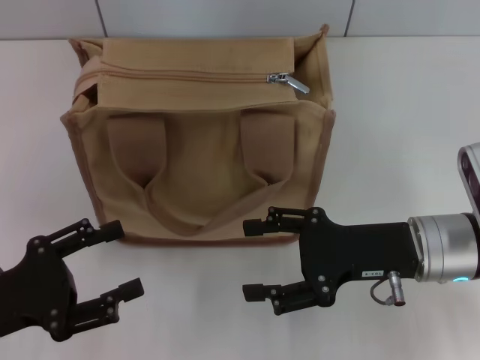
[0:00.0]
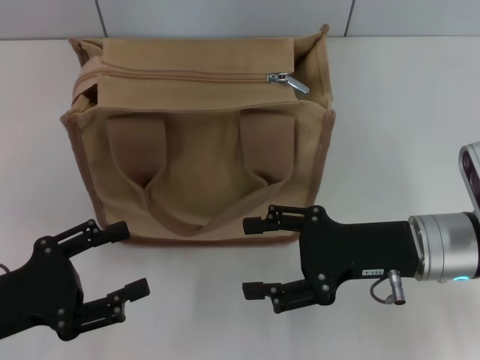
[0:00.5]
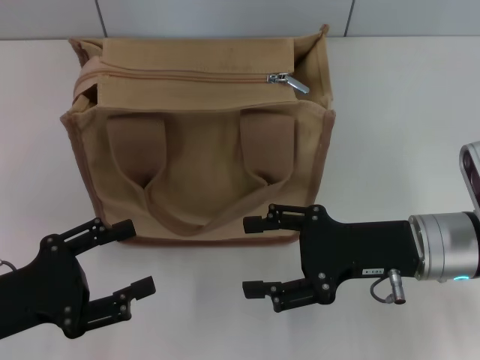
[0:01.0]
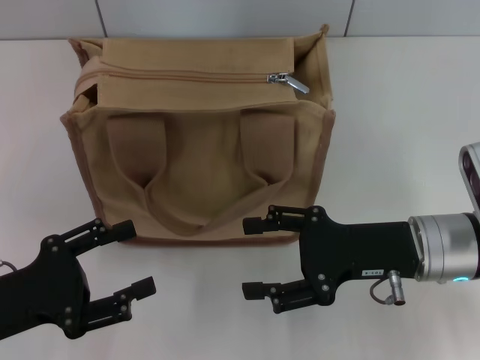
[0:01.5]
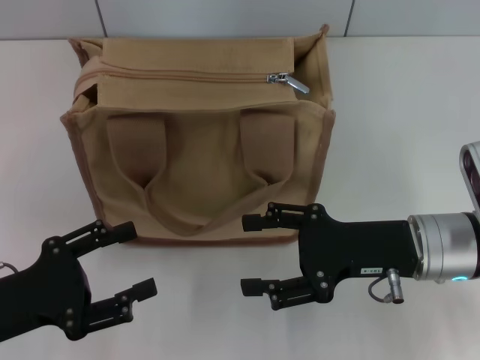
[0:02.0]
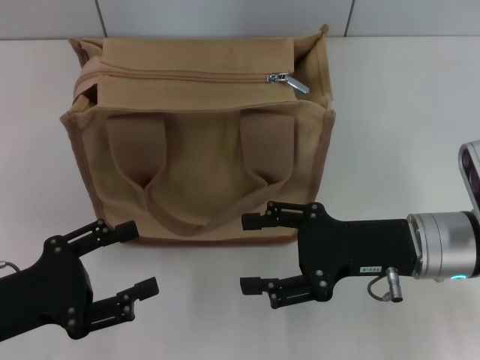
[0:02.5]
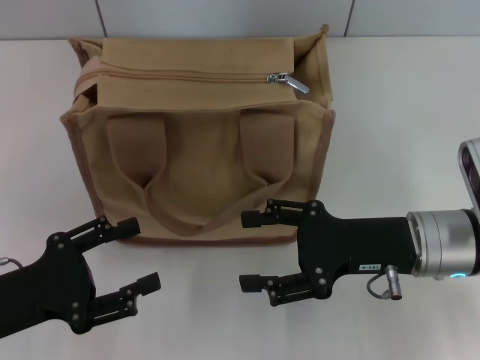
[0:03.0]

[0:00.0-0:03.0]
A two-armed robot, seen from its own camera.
0:00.0 to 0:01.5: Neither gripper changes place.
0:01.5 to 0:03.0: The two grippers keep their place.

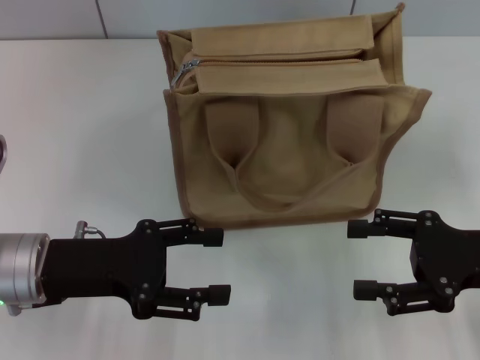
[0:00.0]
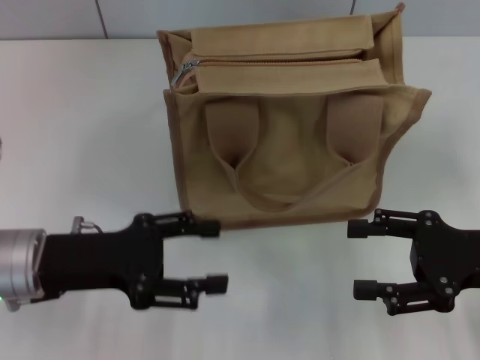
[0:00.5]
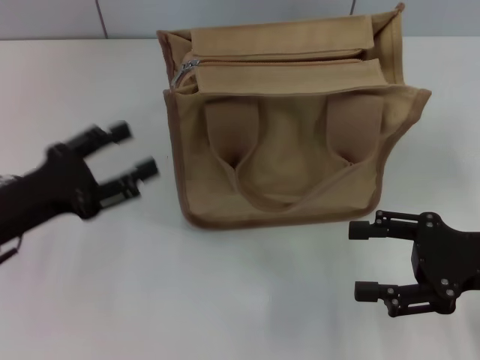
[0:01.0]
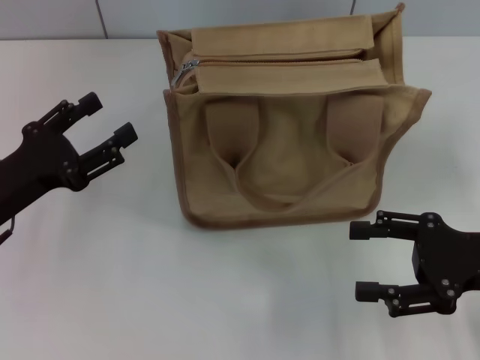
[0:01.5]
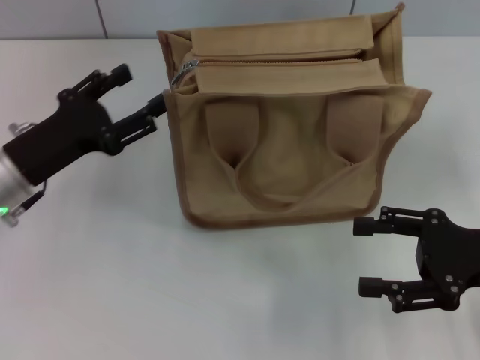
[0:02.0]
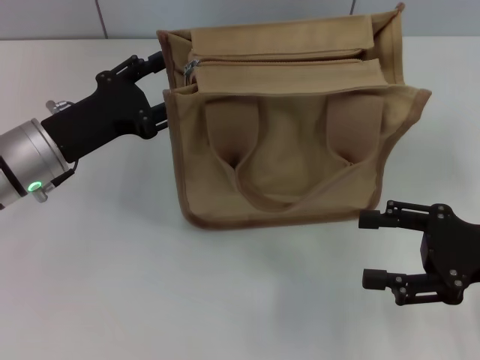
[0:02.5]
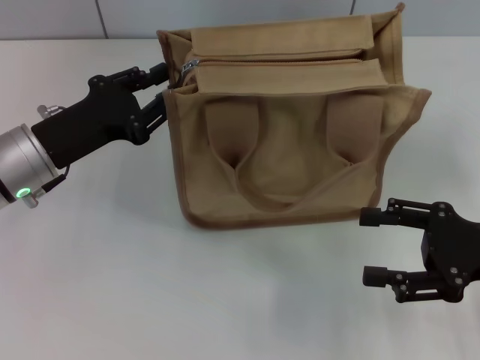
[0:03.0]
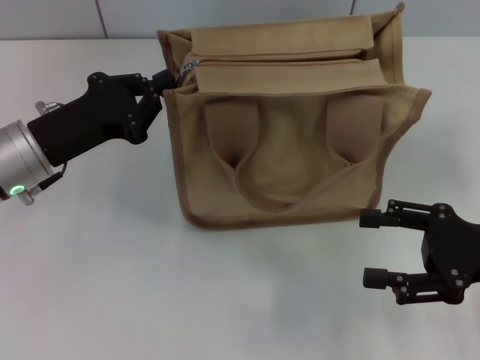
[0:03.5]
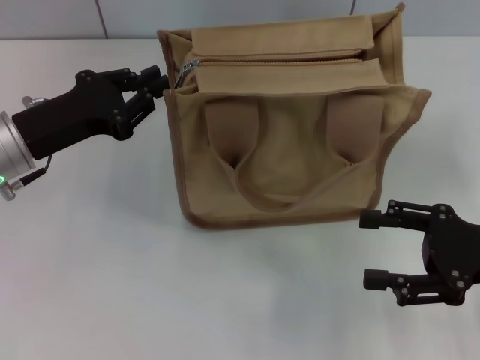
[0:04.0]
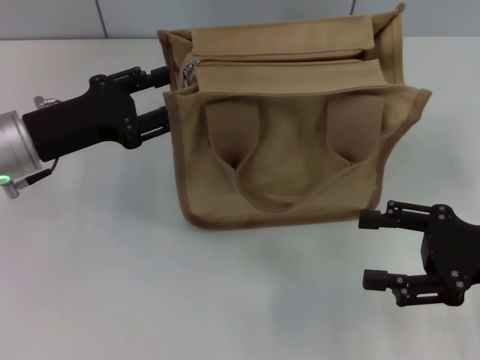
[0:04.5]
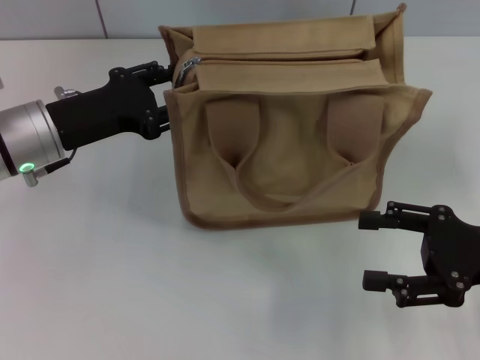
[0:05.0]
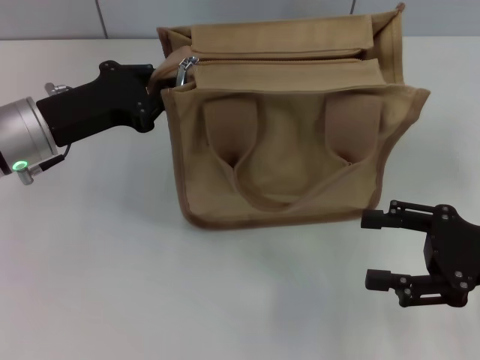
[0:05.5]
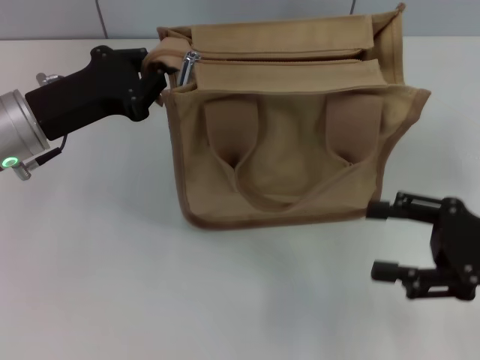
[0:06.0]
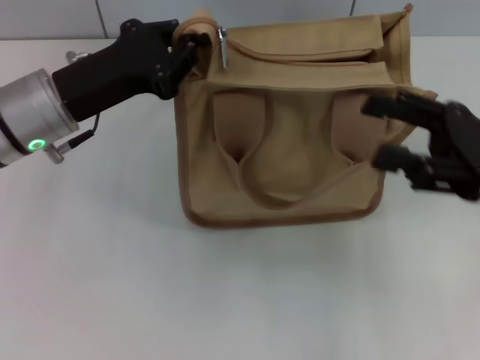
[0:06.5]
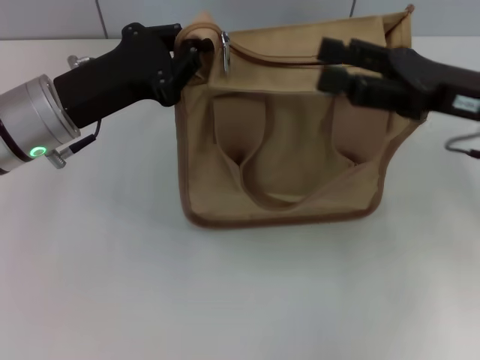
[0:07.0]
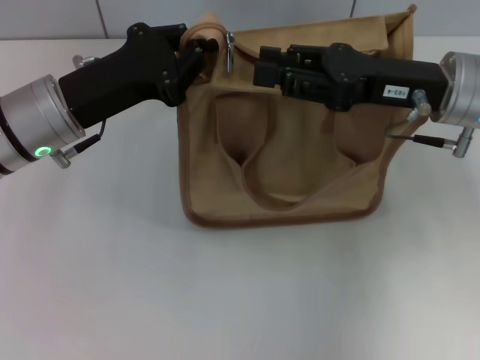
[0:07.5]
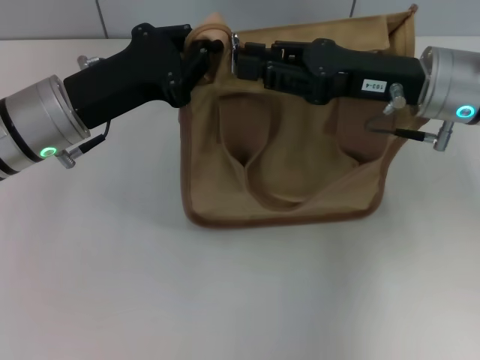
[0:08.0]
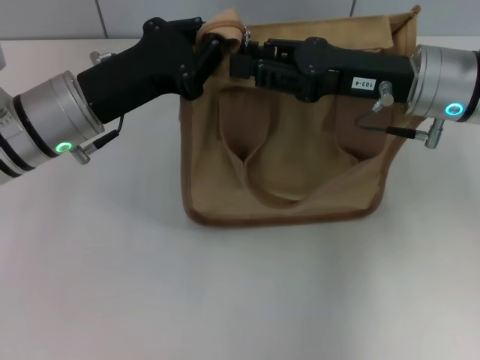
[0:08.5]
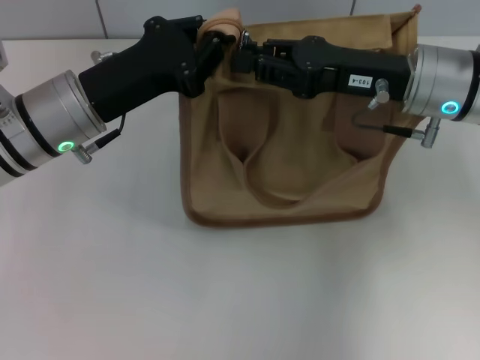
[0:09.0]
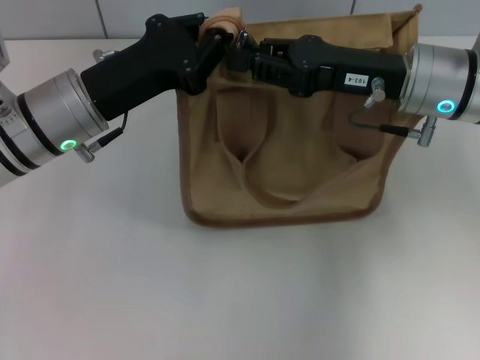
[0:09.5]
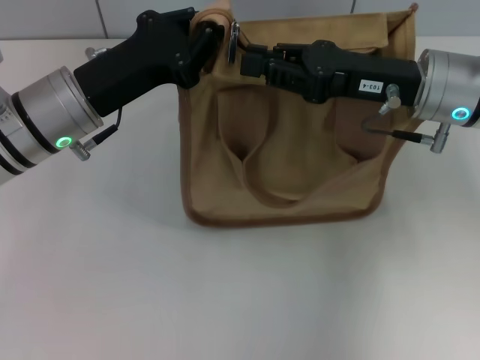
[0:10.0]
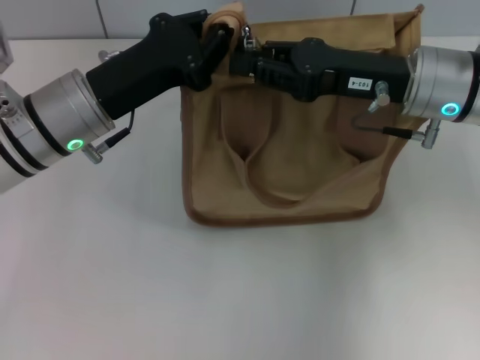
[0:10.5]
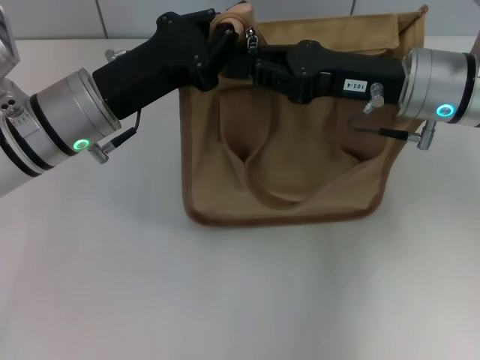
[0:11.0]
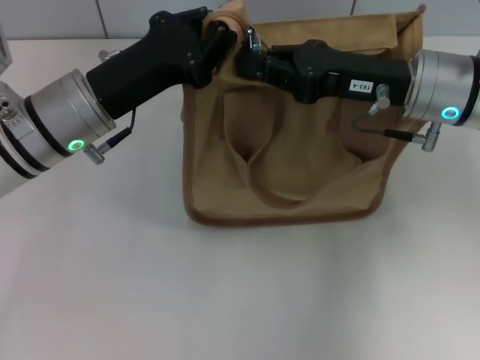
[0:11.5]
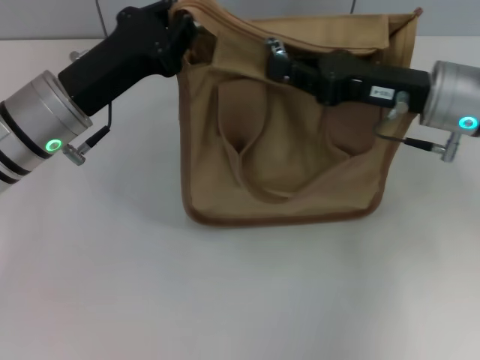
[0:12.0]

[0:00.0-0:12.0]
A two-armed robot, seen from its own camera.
0:00.0 to 0:02.0: The left gripper goes roughly 5 cm forward.
0:02.0 to 0:04.0: The left gripper closes its fingers.
0:04.0 to 0:06.0: The left gripper opens, then closes again.
0:06.0 to 0:08.0: The right gripper shifts roughly 20 cm forward, to the left and upward, and closes up.
0:08.0 to 0:12.0: The grippers move only a little.

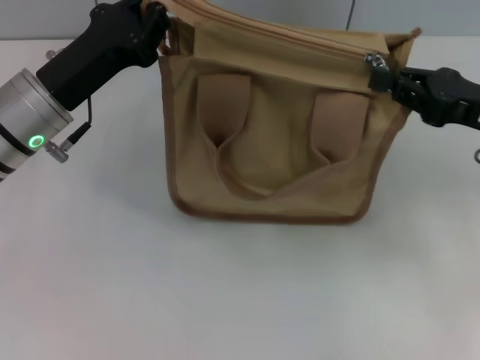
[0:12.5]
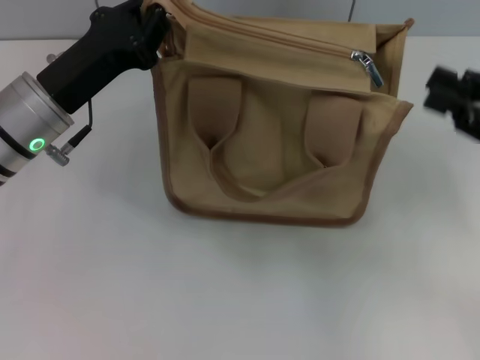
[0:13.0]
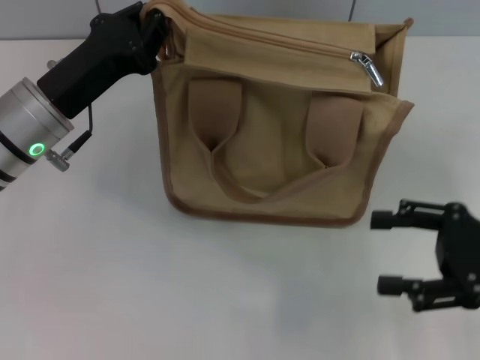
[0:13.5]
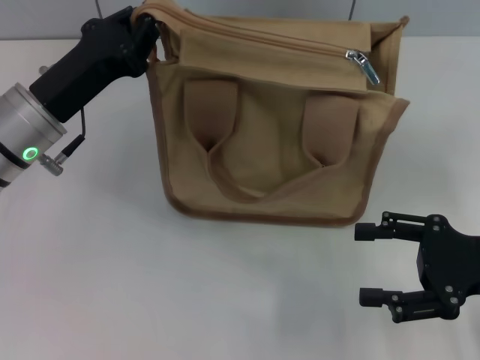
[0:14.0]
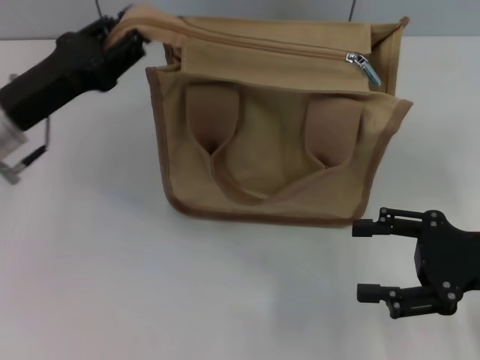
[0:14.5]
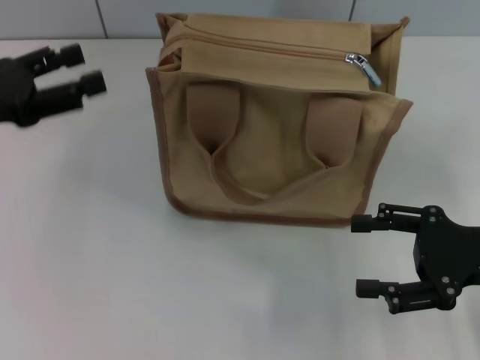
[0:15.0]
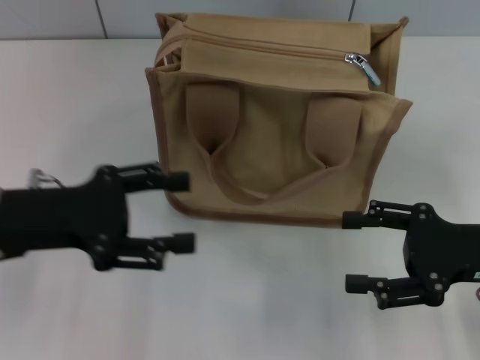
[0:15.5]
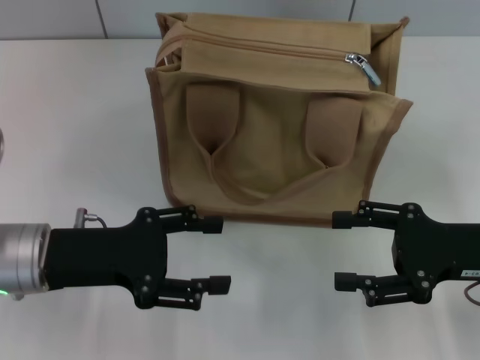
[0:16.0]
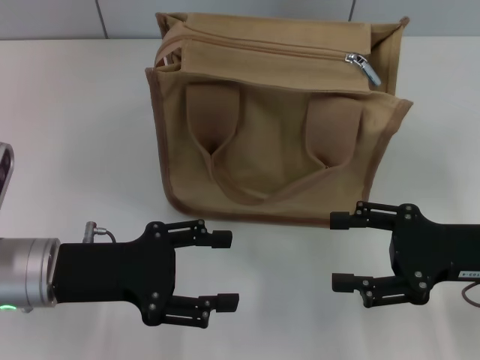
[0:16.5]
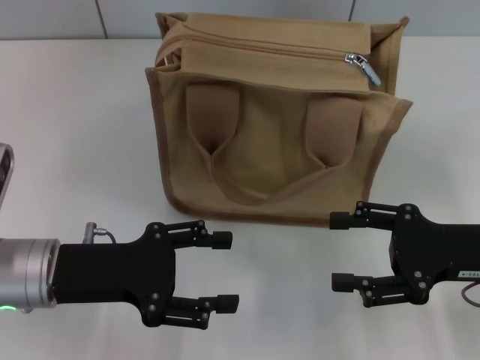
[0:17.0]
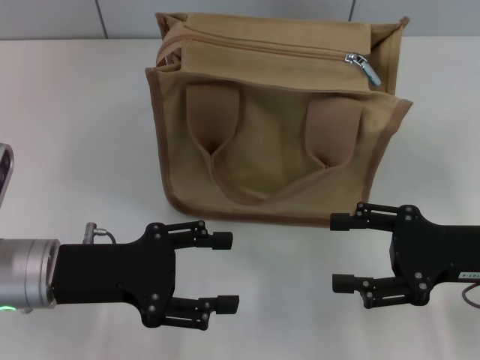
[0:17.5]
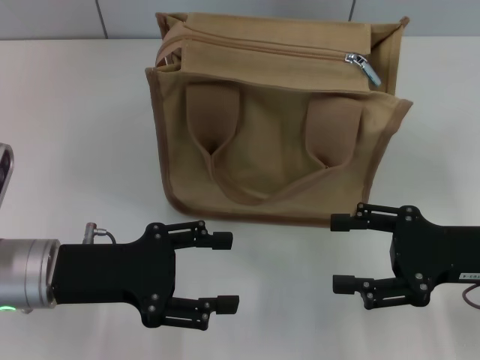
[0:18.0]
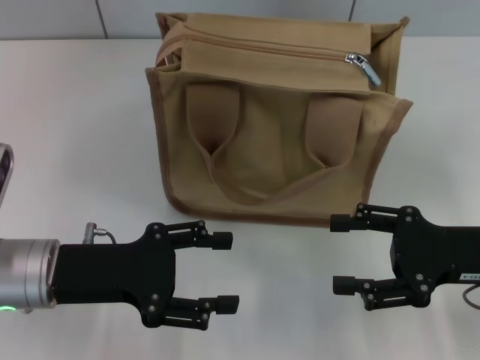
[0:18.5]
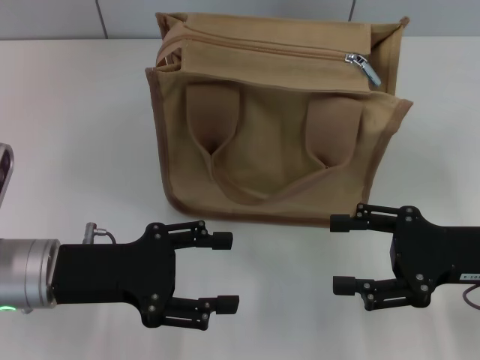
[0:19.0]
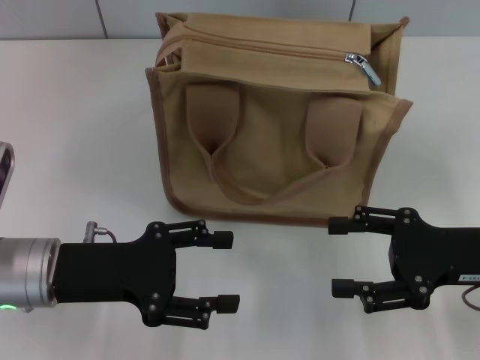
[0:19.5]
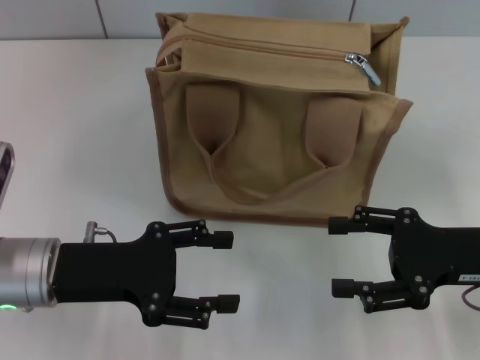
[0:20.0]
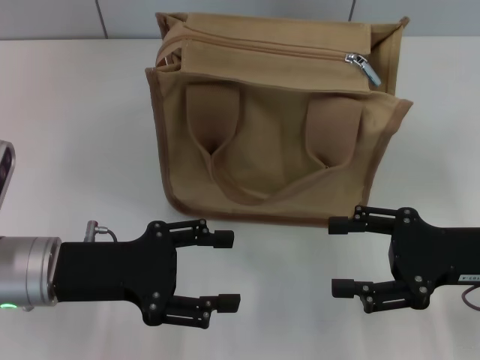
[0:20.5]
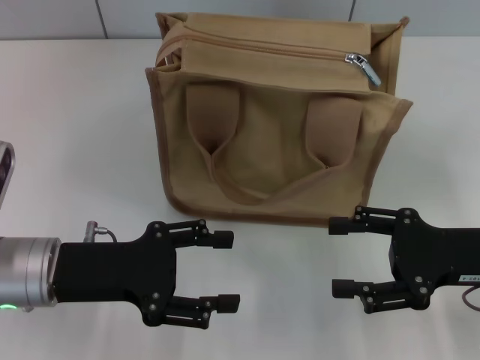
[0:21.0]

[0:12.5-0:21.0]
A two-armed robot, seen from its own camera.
Step, 0:13.0 to 0:14.5: Grab the zipper with your left hand.
0:12.5 to 0:14.5: The right gripper shifts approximately 10 cm backward, and opens. The left gripper opens up.
0:14.5 to 0:16.5: The left gripper goes about 10 cm backward, travels to the left and back again, some 5 cm each way, and opens up.
0:16.5 to 0:21.0: Both grippers stay put.
